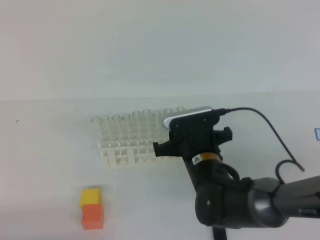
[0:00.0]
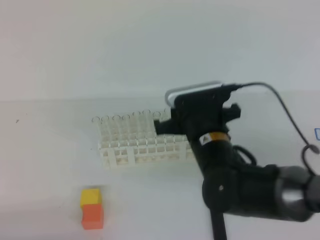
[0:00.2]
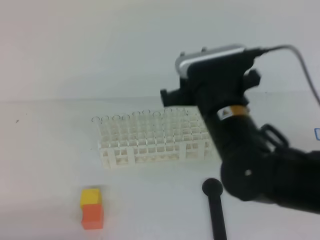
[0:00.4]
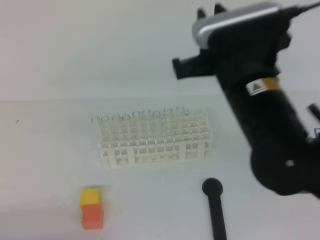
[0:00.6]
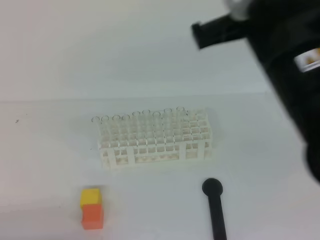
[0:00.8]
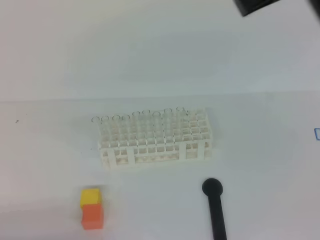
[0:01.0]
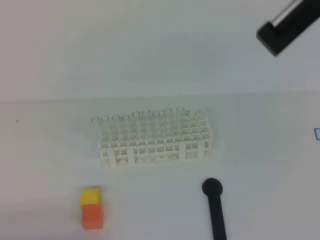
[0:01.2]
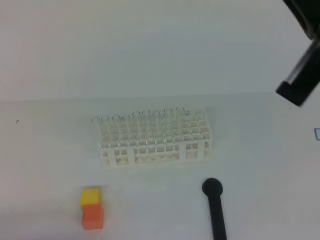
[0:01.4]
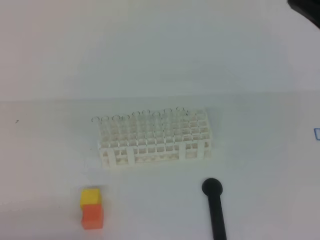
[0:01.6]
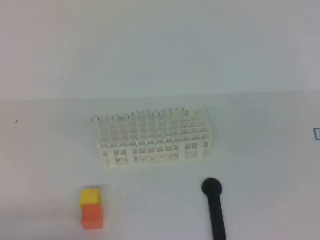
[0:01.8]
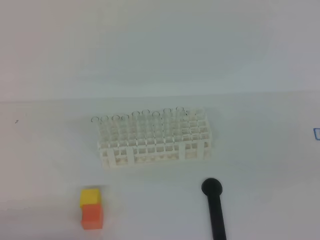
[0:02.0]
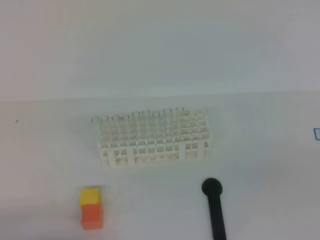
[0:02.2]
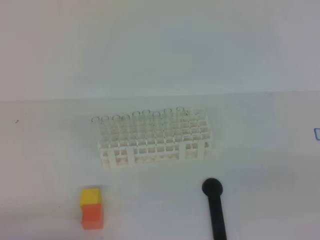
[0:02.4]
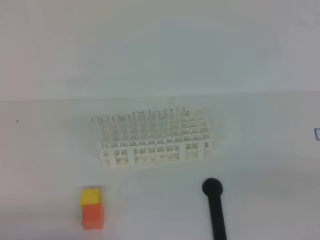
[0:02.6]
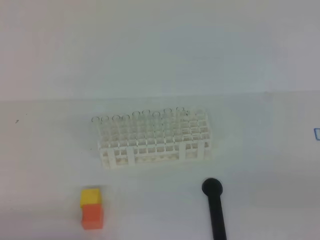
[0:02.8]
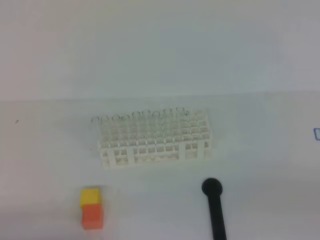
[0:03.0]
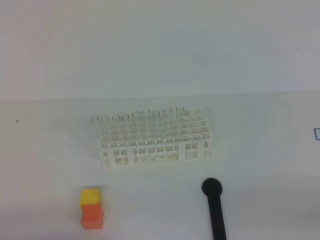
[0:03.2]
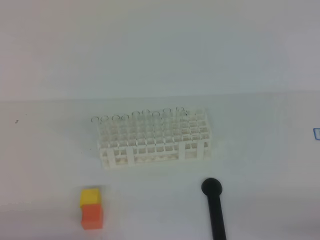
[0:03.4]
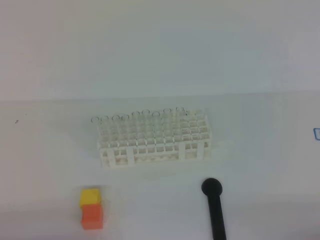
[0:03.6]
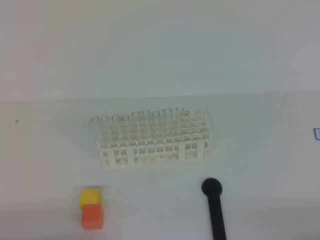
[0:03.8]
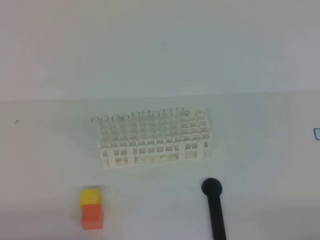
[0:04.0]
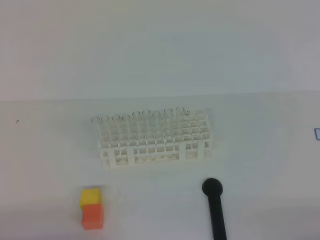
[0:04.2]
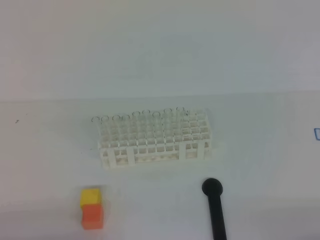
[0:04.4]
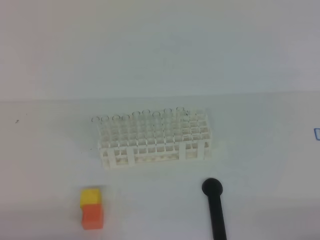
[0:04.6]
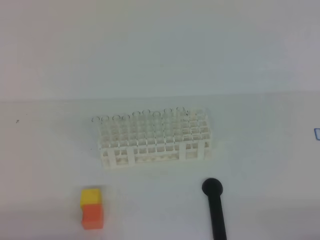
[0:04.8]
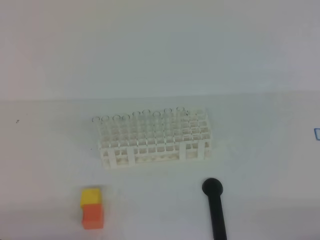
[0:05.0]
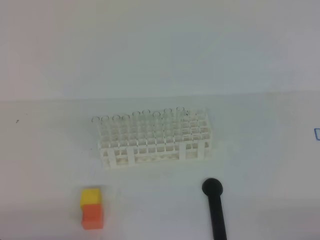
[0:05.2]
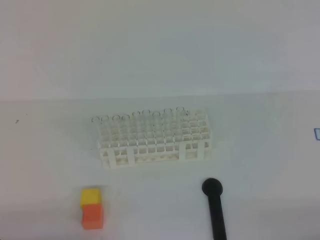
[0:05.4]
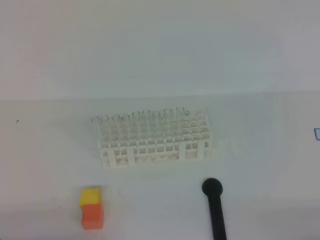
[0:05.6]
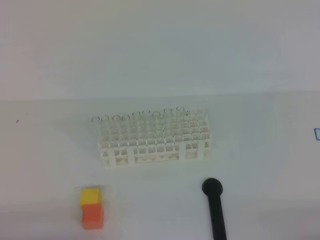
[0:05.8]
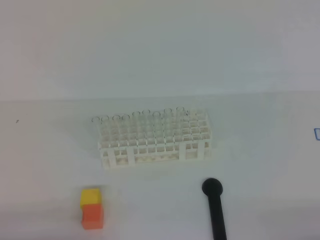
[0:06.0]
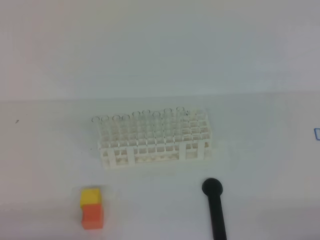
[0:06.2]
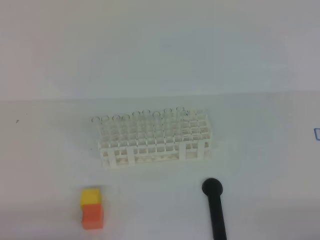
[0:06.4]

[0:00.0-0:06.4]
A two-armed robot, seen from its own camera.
0:00.0 to 0:01.6: The right gripper is displaced upward, backward and to the right by about 35 cm, and closes its fingers.
0:01.6 to 0:03.2: The right gripper is displaced downward, to the right and backward by some 25 cm.

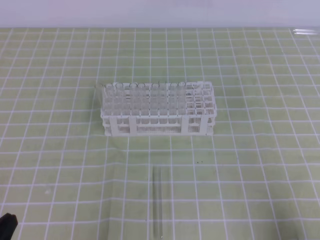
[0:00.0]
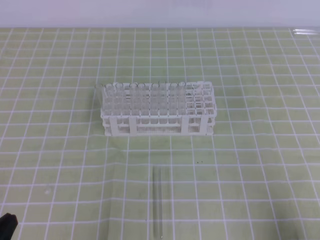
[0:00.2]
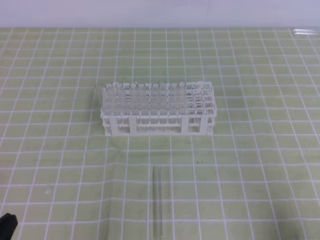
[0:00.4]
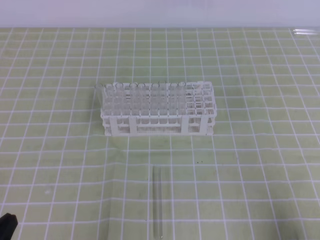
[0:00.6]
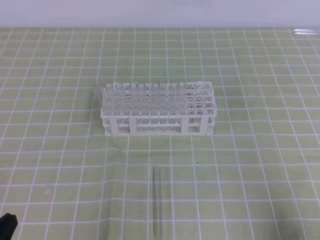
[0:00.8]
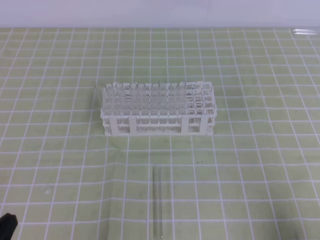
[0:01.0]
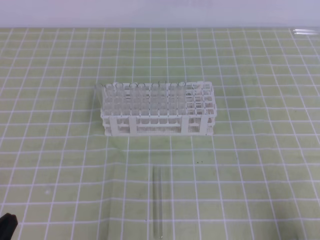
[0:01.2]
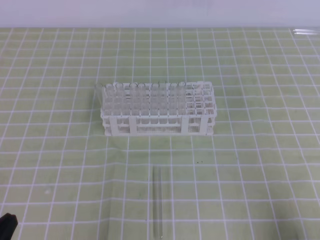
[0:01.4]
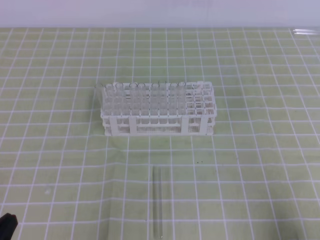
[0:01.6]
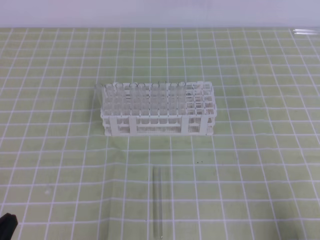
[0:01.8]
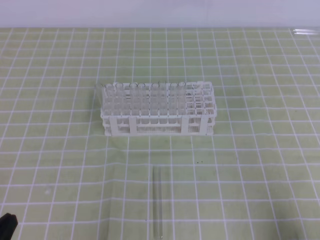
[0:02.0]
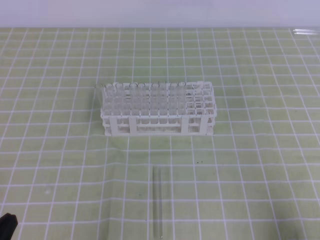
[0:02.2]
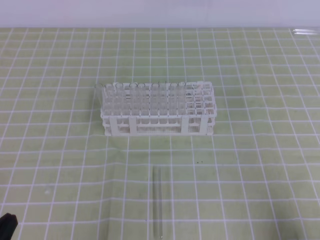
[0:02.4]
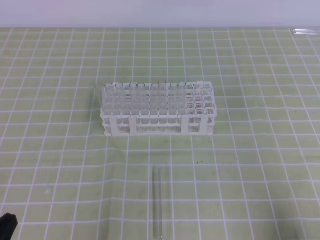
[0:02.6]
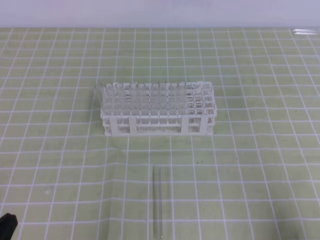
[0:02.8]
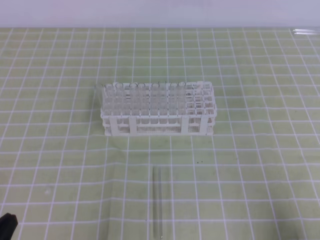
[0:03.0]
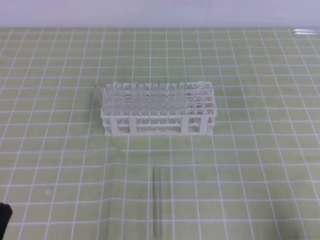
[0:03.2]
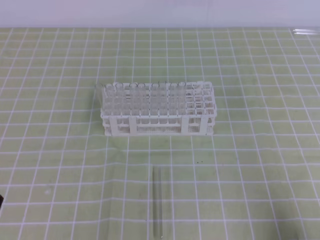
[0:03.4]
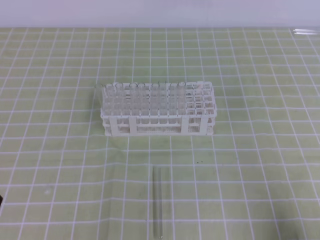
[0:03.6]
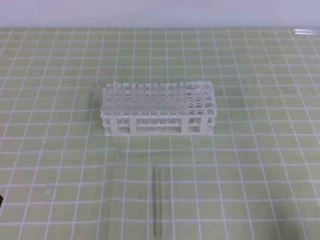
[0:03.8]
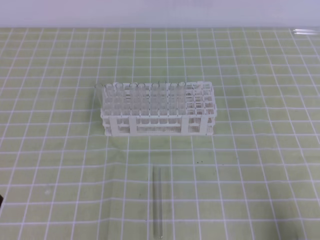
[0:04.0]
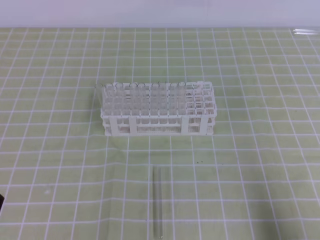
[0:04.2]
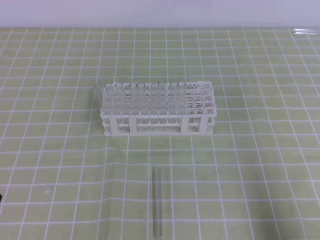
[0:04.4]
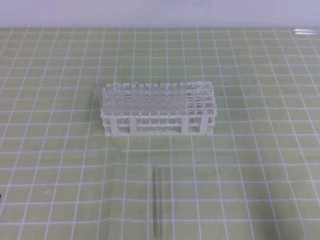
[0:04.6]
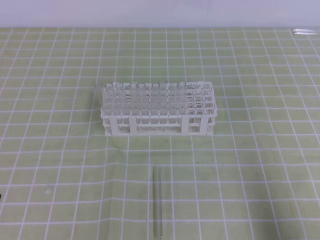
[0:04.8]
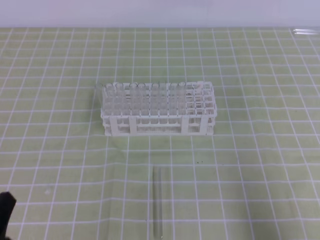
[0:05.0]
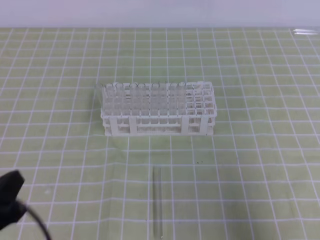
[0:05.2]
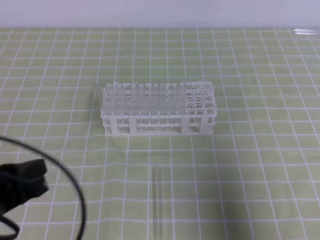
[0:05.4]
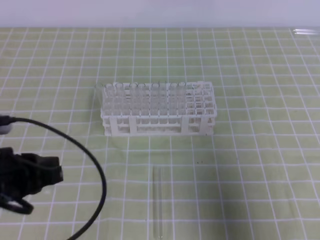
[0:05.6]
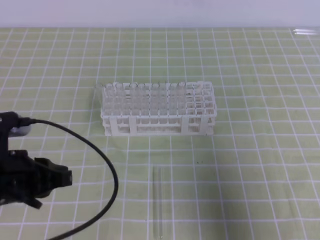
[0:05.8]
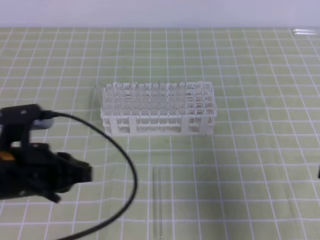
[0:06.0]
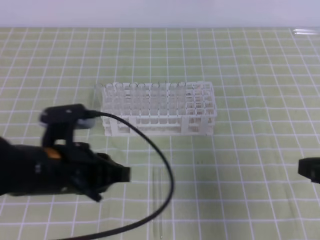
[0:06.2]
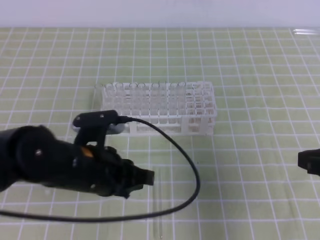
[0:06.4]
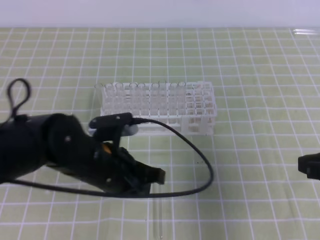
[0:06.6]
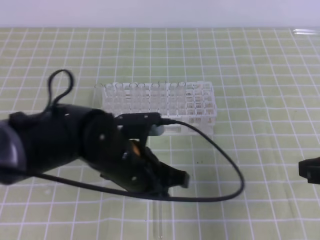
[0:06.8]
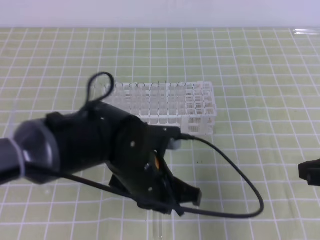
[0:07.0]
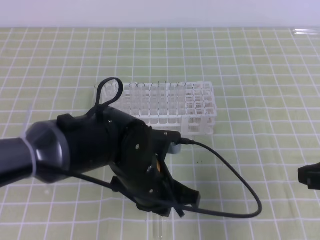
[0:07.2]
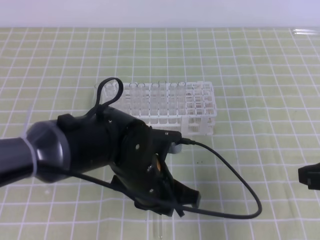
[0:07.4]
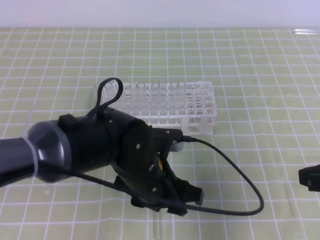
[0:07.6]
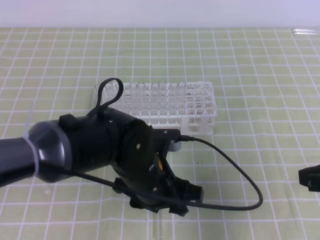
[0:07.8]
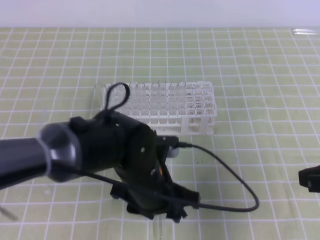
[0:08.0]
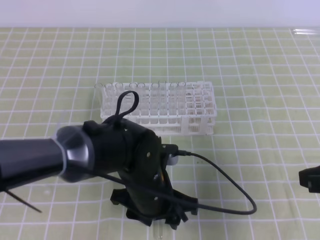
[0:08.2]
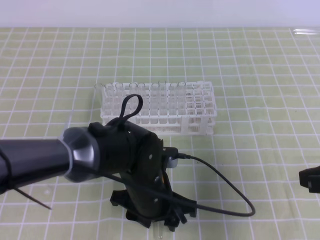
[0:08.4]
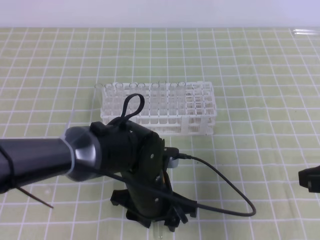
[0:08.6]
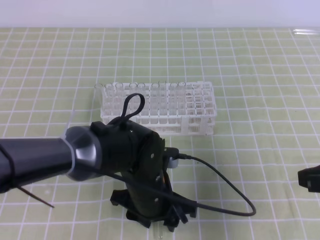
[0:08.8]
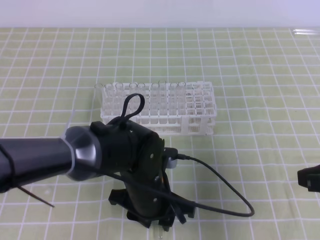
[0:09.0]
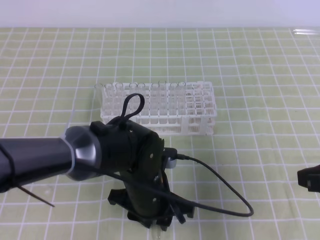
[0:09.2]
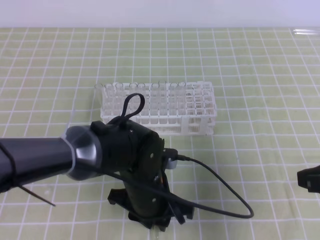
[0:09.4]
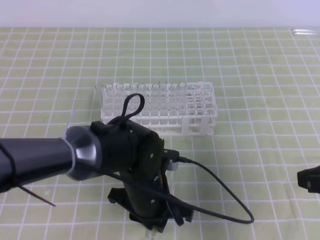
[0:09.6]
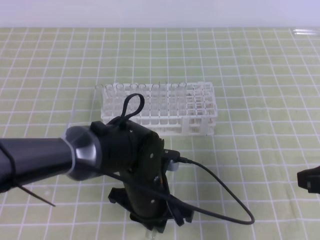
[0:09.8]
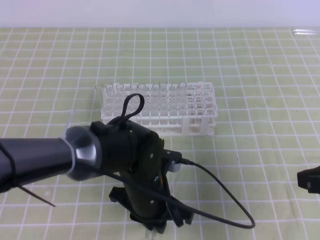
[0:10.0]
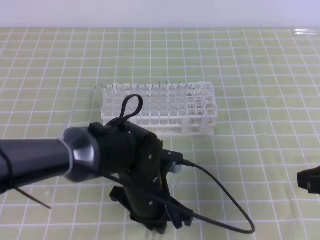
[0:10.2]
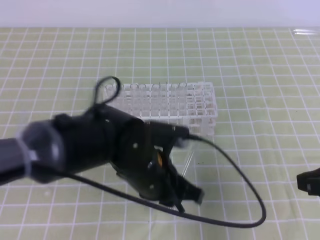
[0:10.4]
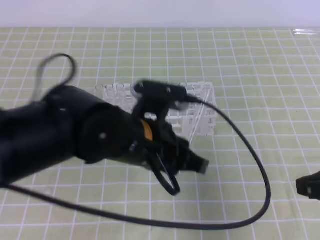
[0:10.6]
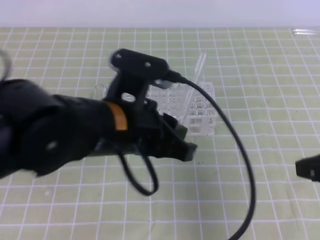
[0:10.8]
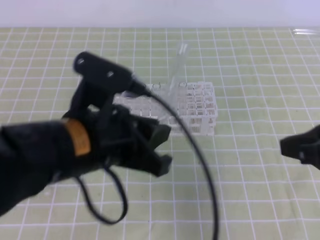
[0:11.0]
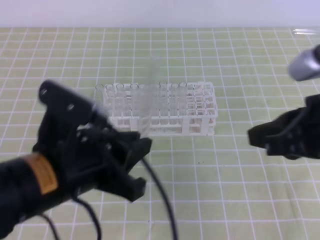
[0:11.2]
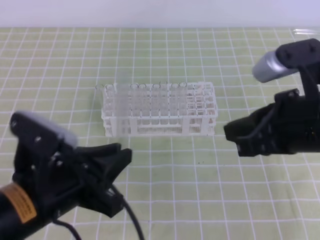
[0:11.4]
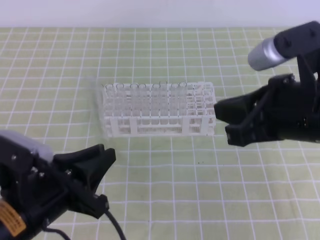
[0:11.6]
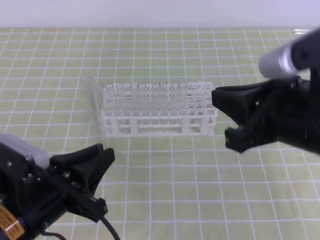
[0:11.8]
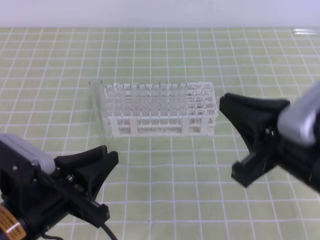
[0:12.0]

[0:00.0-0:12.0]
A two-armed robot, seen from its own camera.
0:00.0 to 0:03.0: Both grippers stay put.
0:04.4 to 0:06.0: The right gripper moves upward and forward, about 10 cm. Meanwhile the left gripper is displaced forward and to the right by approximately 15 cm.
0:06.0 to 0:07.6: The left gripper is displaced to the right by approximately 15 cm, and opens.
0:07.6 to 0:09.0: The grippers move only a little.
0:09.0 to 0:10.4: The left gripper heads upward, covering approximately 5 cm, and closes up.
0:10.4 to 0:12.0: The left gripper goes roughly 15 cm to the left and backward. The right gripper heads to the left and upward, covering about 10 cm.

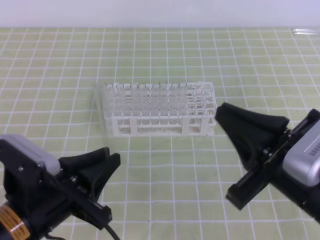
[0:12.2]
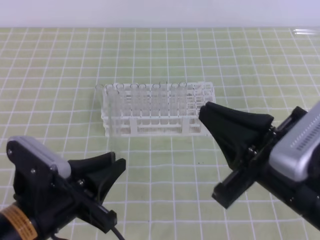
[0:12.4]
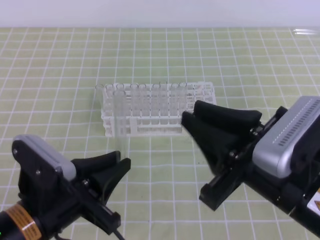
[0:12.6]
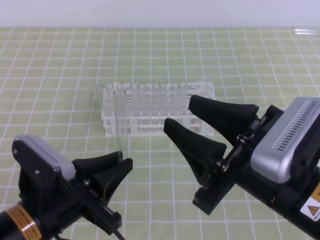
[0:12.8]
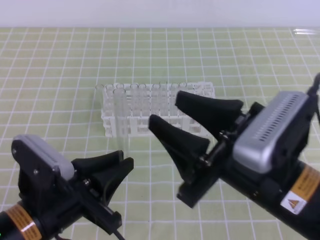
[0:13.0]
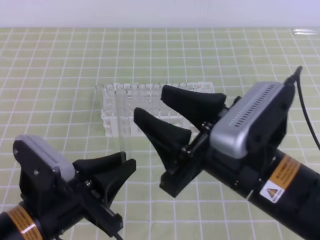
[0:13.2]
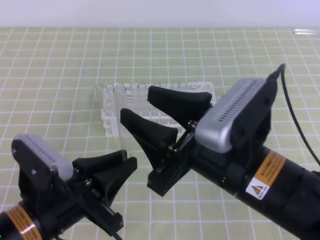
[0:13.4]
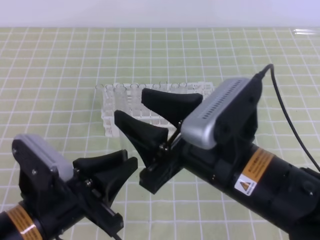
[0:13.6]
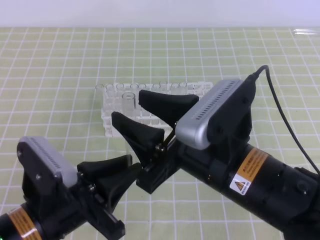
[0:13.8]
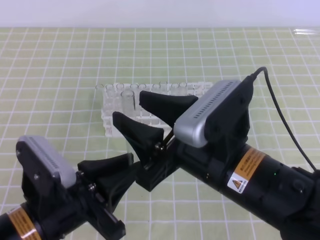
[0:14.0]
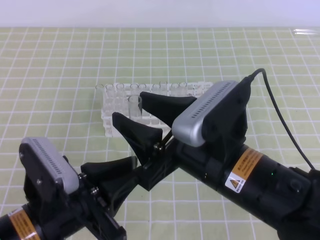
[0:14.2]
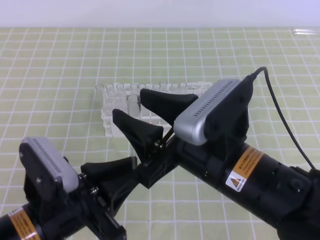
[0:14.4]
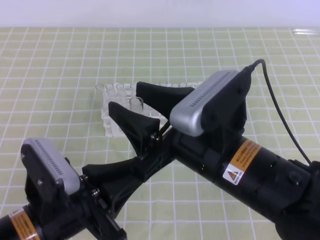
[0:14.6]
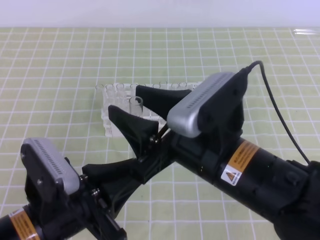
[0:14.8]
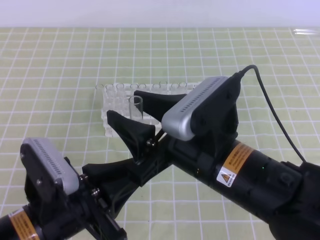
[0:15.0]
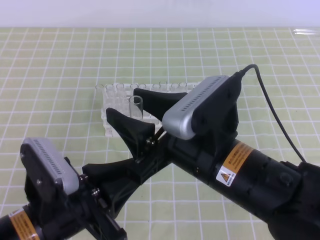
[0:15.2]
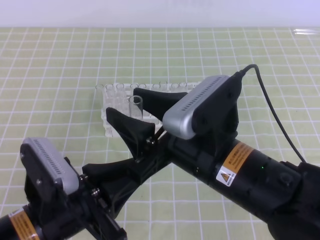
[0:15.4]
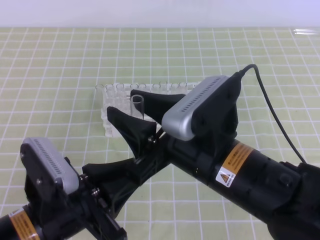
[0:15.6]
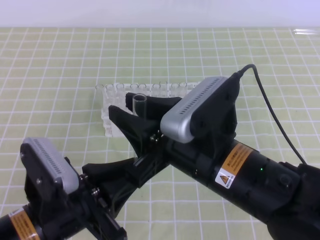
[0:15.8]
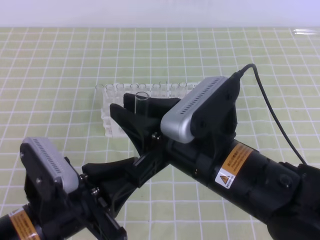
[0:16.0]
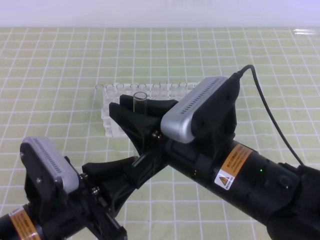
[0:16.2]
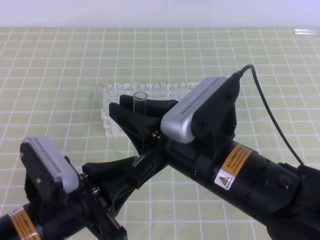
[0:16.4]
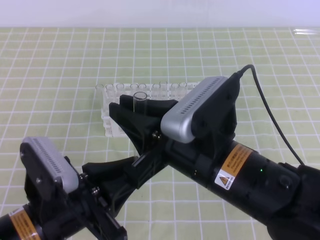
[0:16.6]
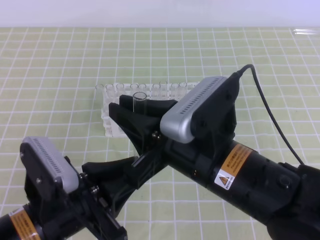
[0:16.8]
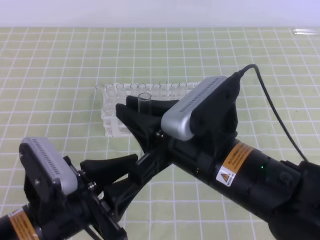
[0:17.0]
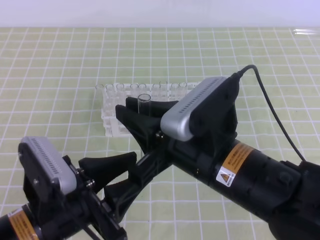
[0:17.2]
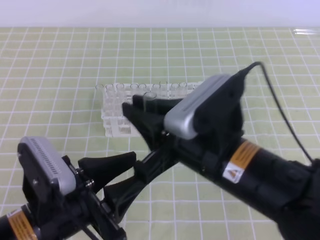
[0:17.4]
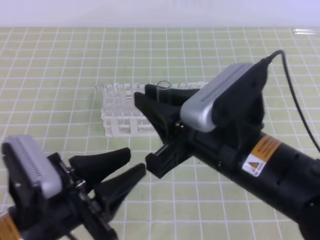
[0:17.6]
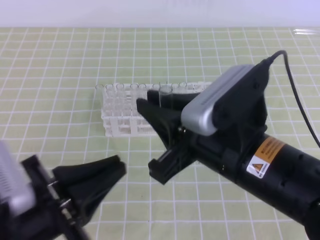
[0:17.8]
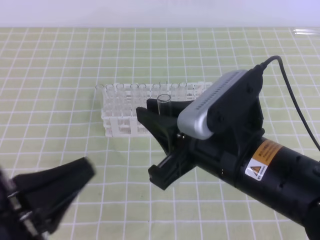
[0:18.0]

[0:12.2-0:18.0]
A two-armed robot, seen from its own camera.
0:12.2 to 0:13.6: The right gripper shifts roughly 10 cm to the left, and opens up.
0:13.6 to 0:15.0: There are only small adjustments of the grippers.
0:15.0 to 0:16.6: The right gripper closes.
0:16.6 to 0:18.0: The left gripper shifts by roughly 5 cm, and opens, then closes once more.
